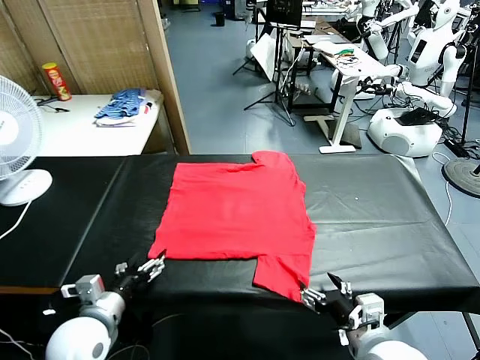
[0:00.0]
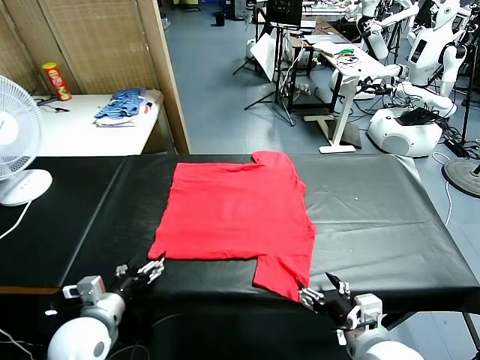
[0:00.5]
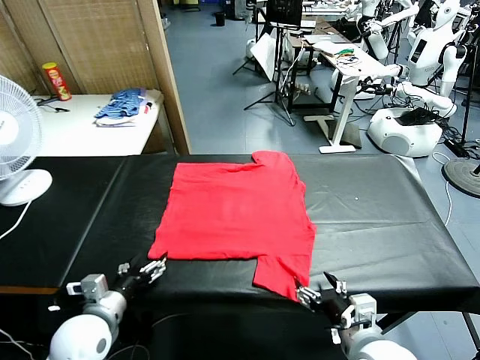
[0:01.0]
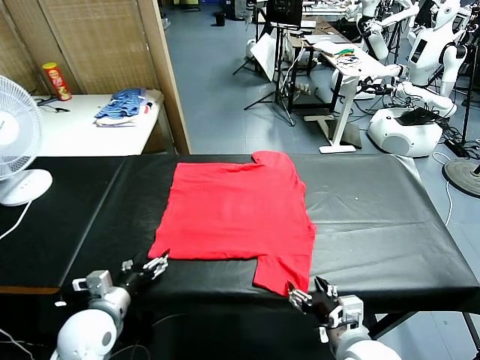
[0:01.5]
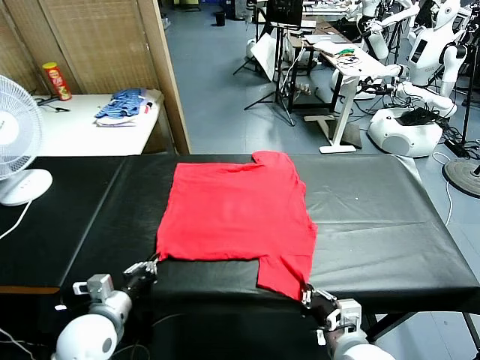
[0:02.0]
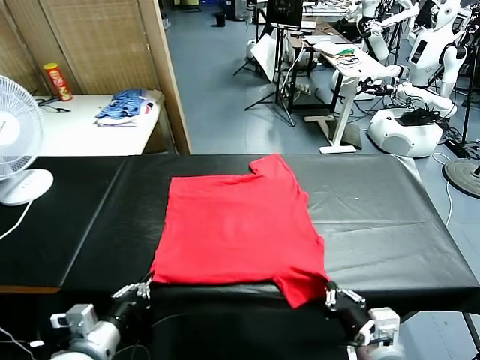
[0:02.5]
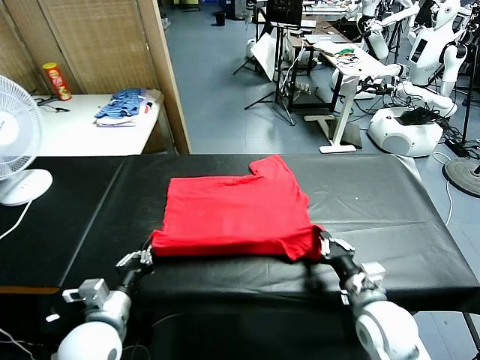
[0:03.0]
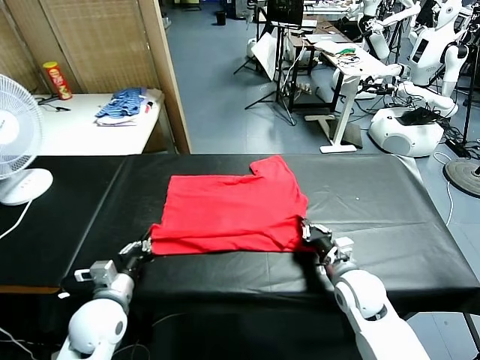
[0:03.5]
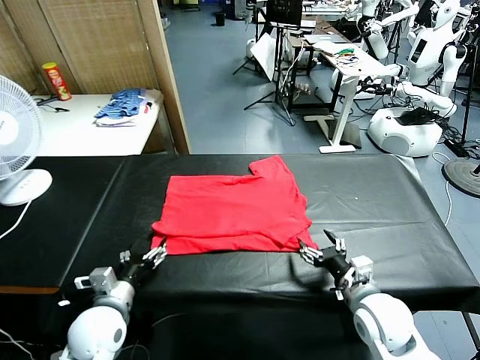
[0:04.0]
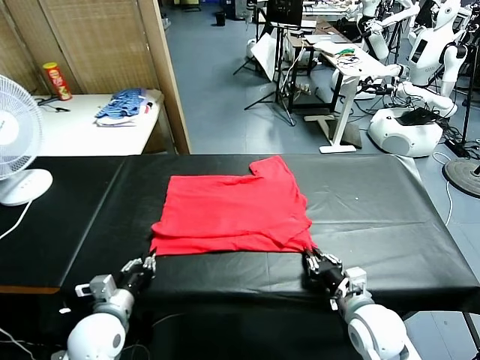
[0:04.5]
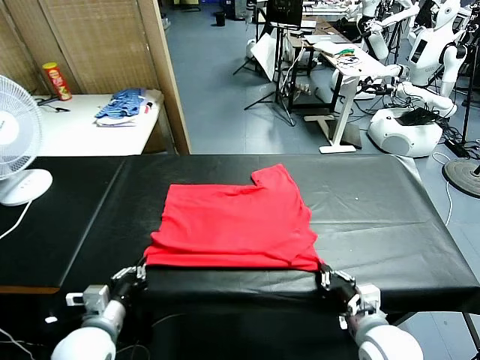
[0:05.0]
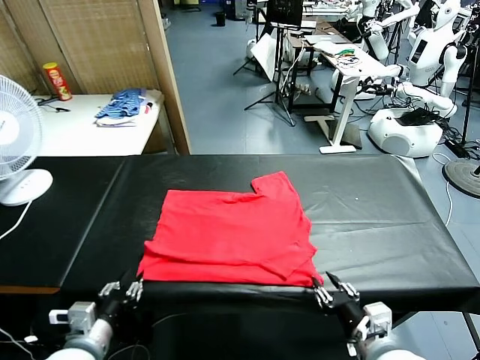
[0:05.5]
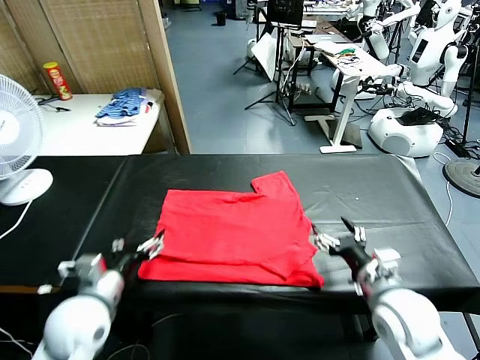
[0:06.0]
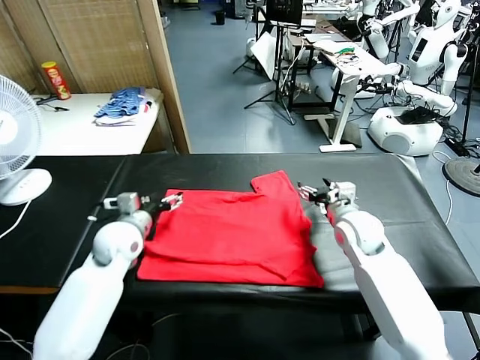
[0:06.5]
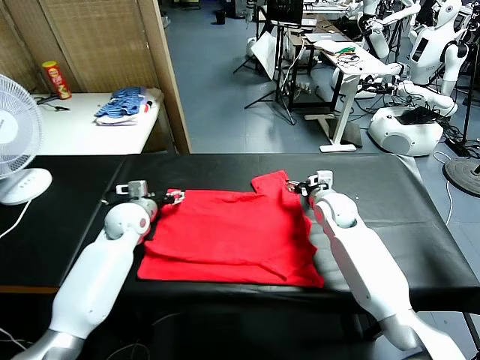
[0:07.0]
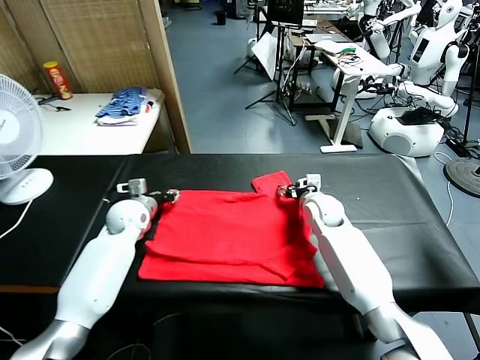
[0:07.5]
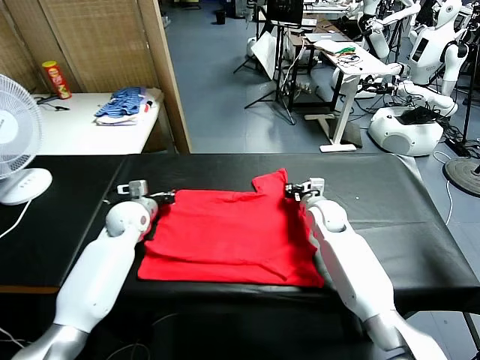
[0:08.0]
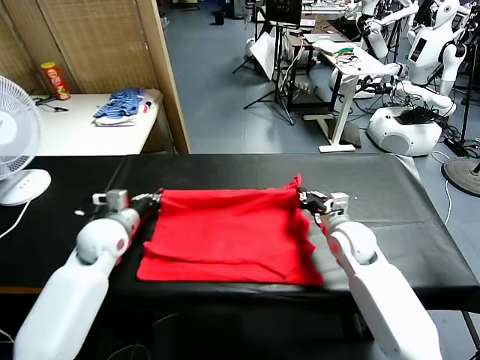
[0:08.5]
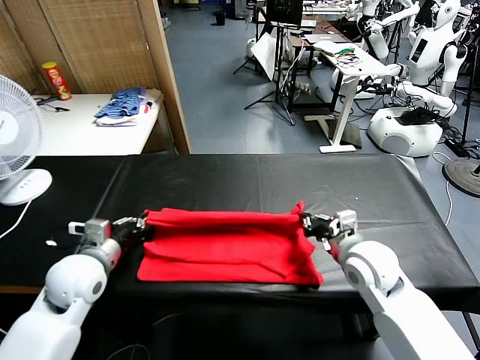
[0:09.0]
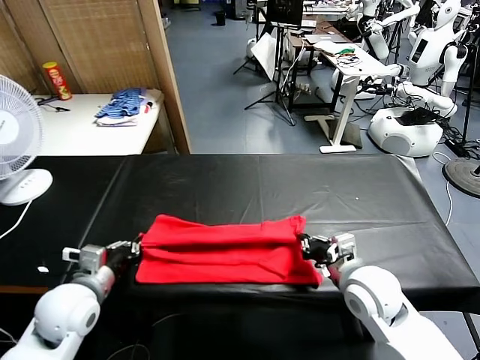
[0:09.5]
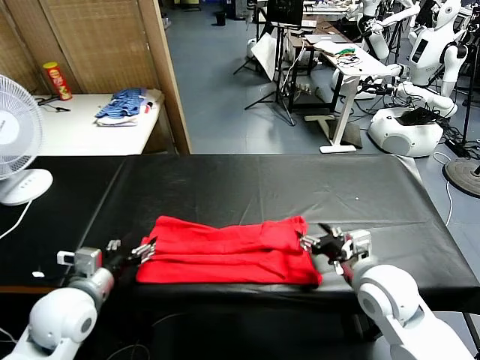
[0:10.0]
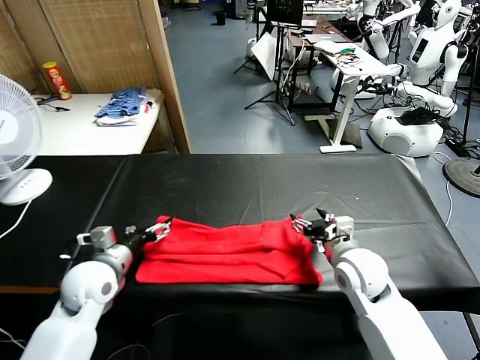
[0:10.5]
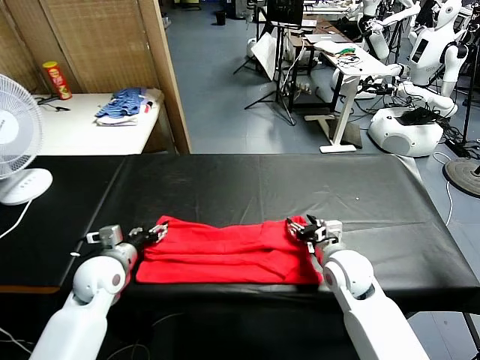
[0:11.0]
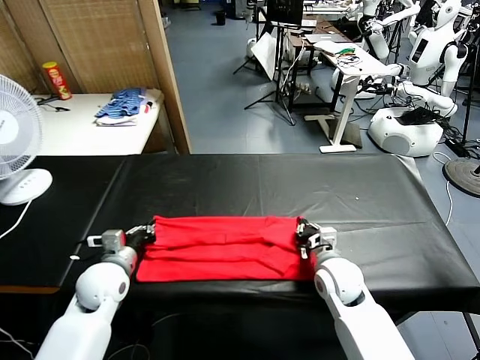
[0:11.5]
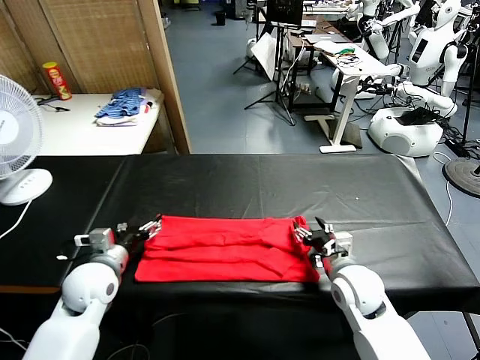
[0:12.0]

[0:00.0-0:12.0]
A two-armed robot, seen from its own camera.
Task of the whole recording: fold and organize the clothes.
Step, 0:00.0 to 0:01.5: use both grippers simultaneously to clamp the lower edge of the clothing fabric.
Step, 0:02.0 to 0:03.5: use both grippers to drag the lower edge of the fabric forward and fold it over the upper edge.
Step, 0:04.0 to 0:05.5: Drag the clothes downward with both gripper.
Step, 0:06.0 to 0:08.0: use both grippers simultaneously to clamp the upper edge of the clothing fabric.
Step, 0:08.5 to 0:09.5: use both grippers to drag the upper edge of the fabric backward and fold it over the lower edge.
0:02.0 to 0:04.0: The left gripper travels backward and back again, about 5 cm each way, and opens up. Meanwhile the right gripper goes approximately 10 cm forward, and opens up.
0:04.0 to 0:06.0: The right gripper is displaced upward and forward by roughly 10 cm, and closes and opens again, while the left gripper heads upward, covering about 5 cm, and closes, then opens again.
0:06.0 to 0:08.0: Both grippers travel together forward, approximately 20 cm. The right gripper closes up, while the left gripper closes up.
0:08.0 to 0:10.0: The right gripper moves backward and upward, approximately 20 cm, and opens up, while the left gripper moves backward, roughly 25 cm, and opens its fingers.
0:10.0 to 0:12.0: The left gripper is displaced forward by about 5 cm, and closes, then reopens, while the right gripper travels downward by roughly 5 cm, and closes and opens again.

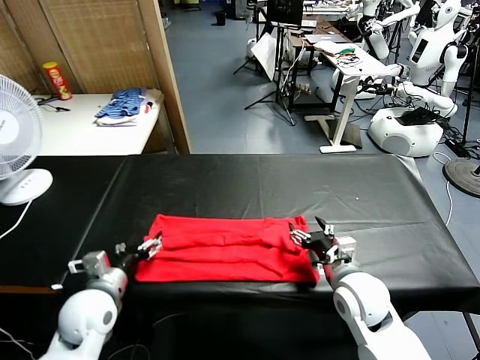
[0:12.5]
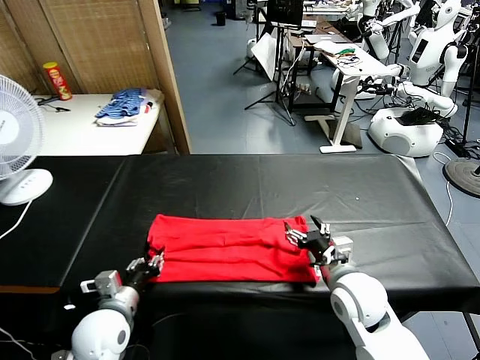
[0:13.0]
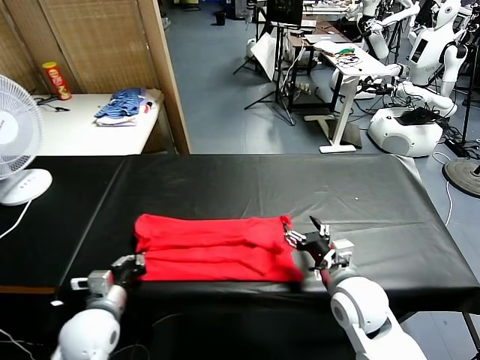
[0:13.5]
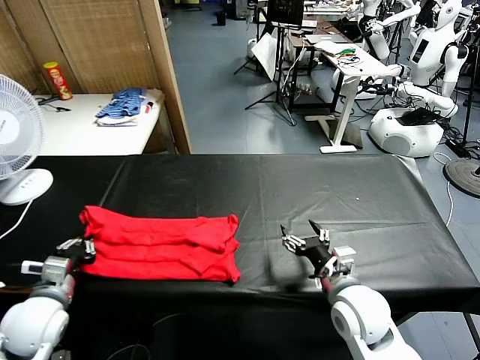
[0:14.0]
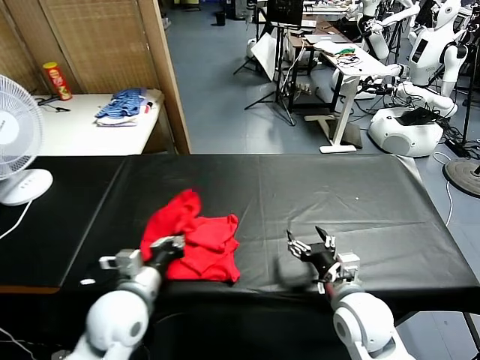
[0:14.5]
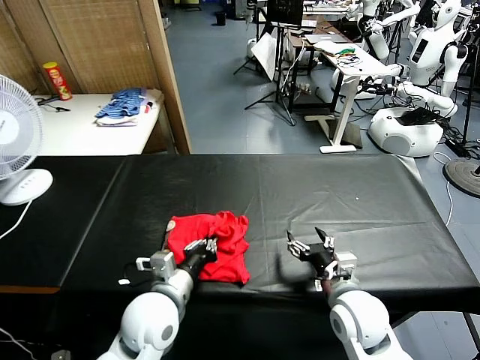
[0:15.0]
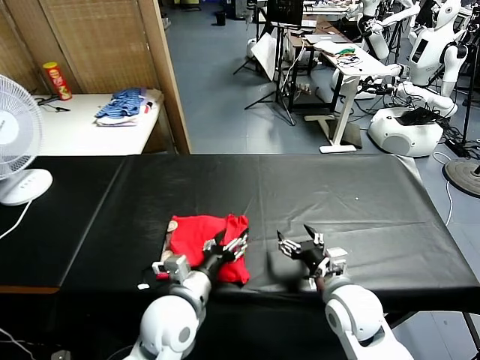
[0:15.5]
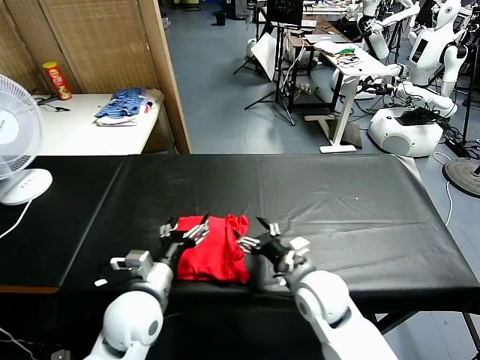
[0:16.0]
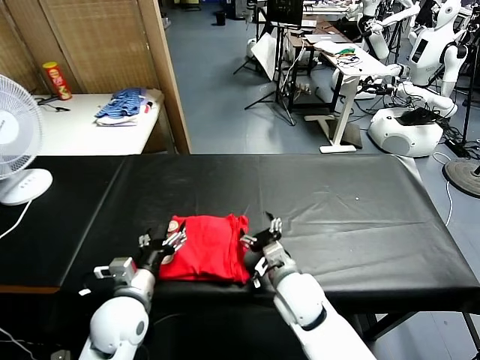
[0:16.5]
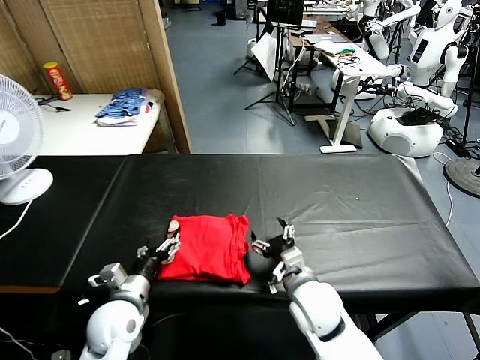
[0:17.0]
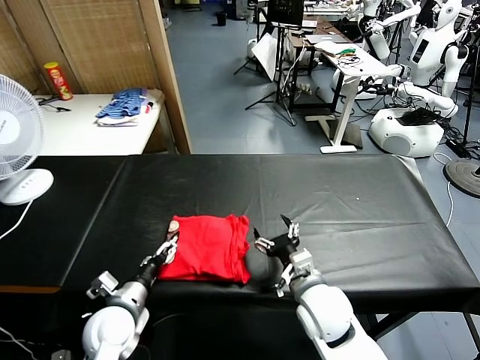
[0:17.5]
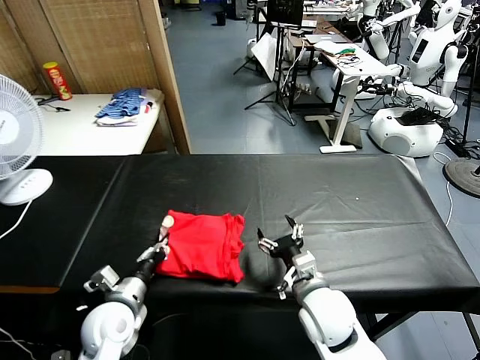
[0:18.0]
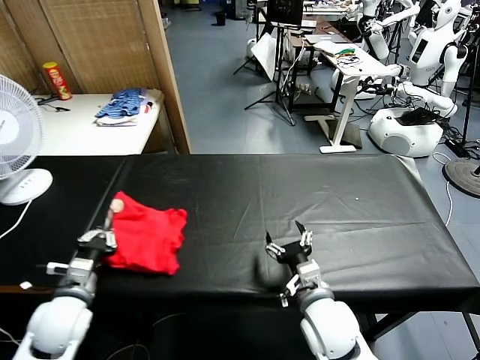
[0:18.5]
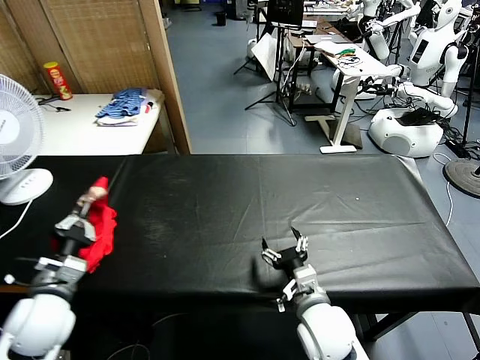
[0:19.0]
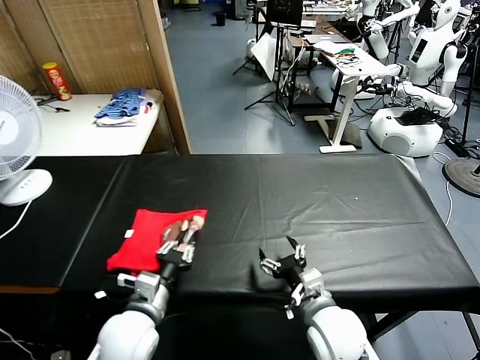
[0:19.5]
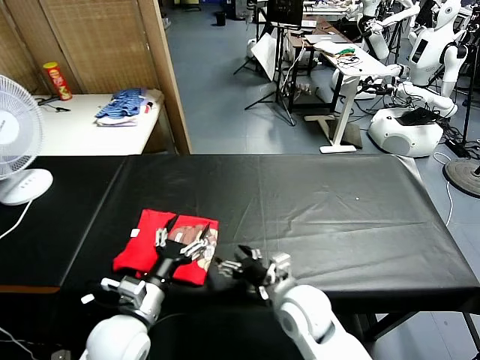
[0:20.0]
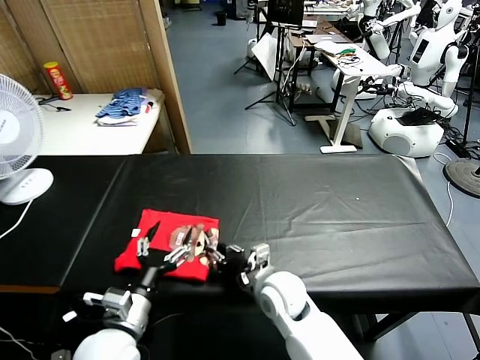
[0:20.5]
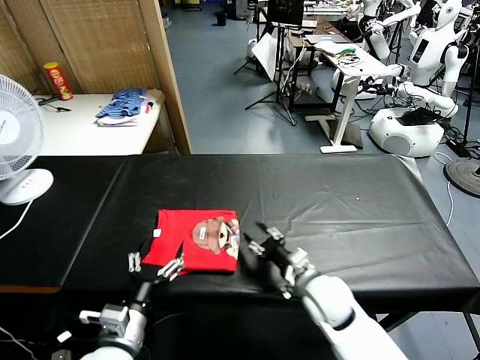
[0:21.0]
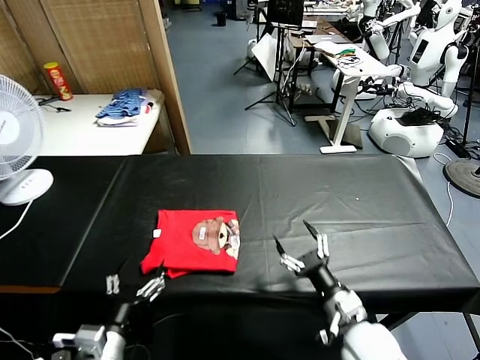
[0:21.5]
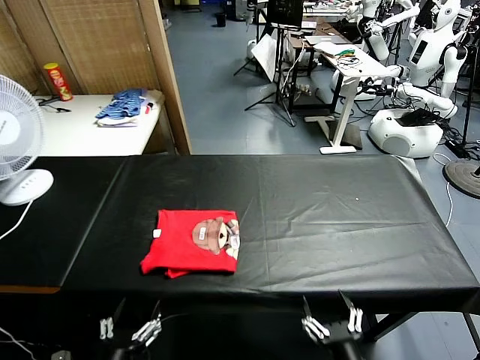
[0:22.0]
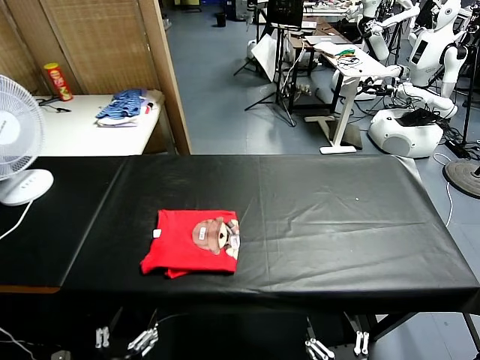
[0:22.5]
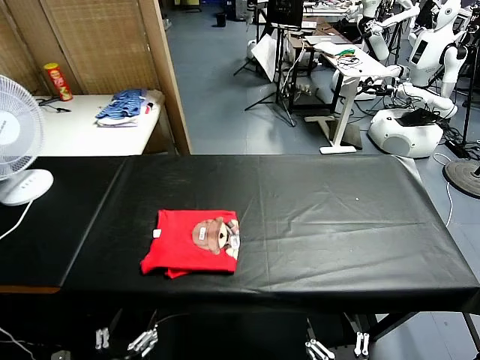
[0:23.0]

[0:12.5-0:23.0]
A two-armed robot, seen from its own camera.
Task of the whole recording: fold and organize the clothes.
Step, 0:13.5 to 0:15.5: use the left gripper to drag the left edge of the fabric to the left and folds it over the right edge.
Step, 0:16.0 to 0:19.5: Flip the folded clothes over with left gripper.
Step, 0:20.0 to 0:21.0: Drag the clothes to the center of the table.
0:12.5 to 0:14.5: The left gripper shifts some 10 cm to the right, and closes up.
0:14.5 to 0:16.5: The right gripper travels to the left and forward by some 10 cm. The left gripper reaches approximately 10 cm to the right, then returns, and opens up.
0:16.5 to 0:19.0: The right gripper moves backward, some 5 cm, while the left gripper heads to the left and upward, covering roughly 15 cm, and closes its fingers.
0:19.0 to 0:21.0: The right gripper is displaced forward by about 5 cm, travels to the left and back again, some 5 cm each way, and closes its fingers. The left gripper travels to the right and backward by about 15 cm, and opens.
0:21.0 to 0:23.0: The left gripper travels backward by approximately 10 cm; the right gripper shifts about 30 cm backward, and opens its fingers.
